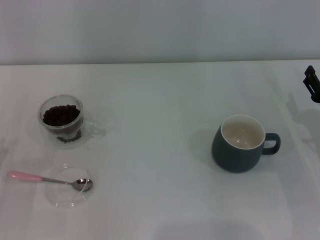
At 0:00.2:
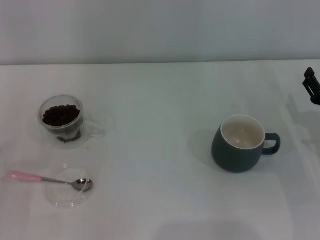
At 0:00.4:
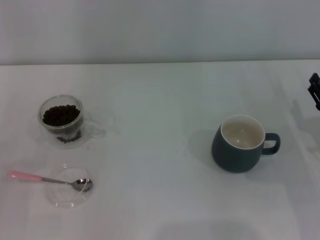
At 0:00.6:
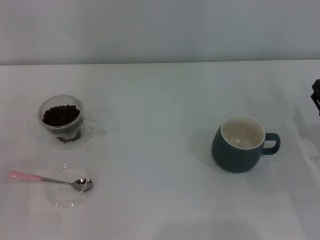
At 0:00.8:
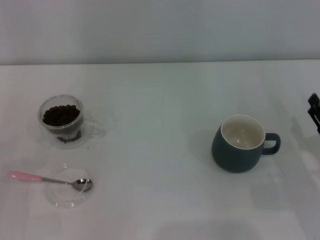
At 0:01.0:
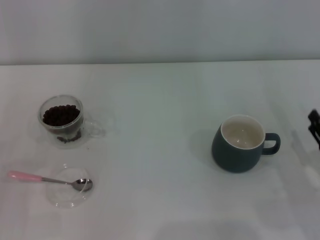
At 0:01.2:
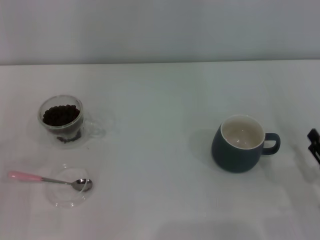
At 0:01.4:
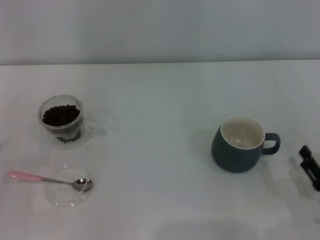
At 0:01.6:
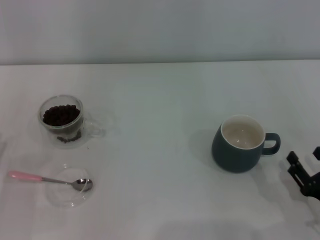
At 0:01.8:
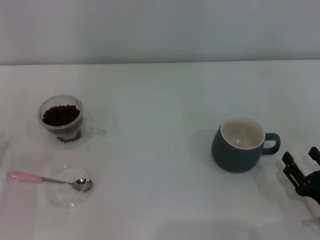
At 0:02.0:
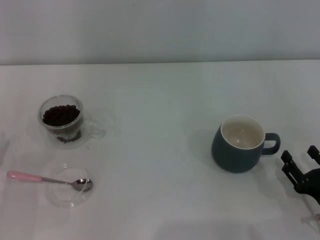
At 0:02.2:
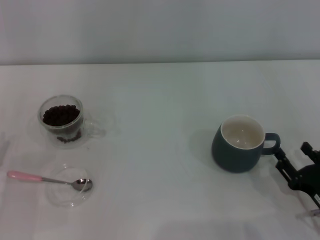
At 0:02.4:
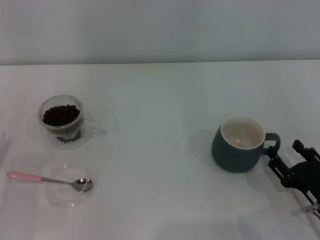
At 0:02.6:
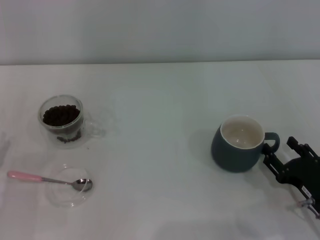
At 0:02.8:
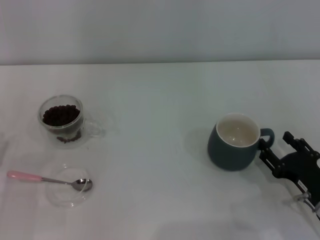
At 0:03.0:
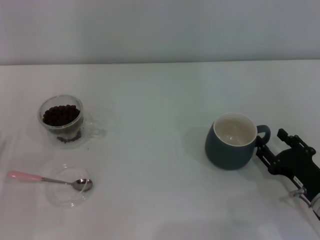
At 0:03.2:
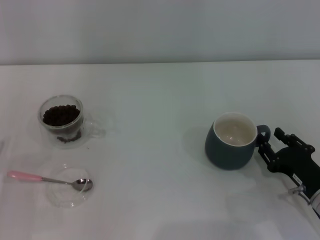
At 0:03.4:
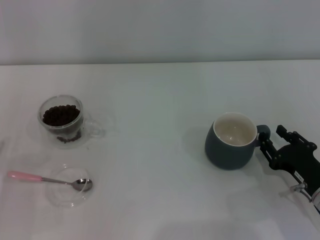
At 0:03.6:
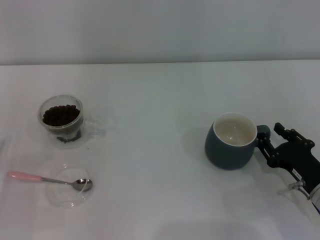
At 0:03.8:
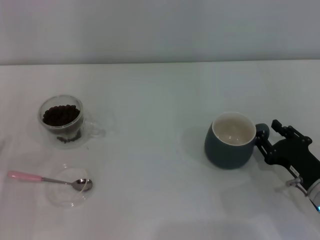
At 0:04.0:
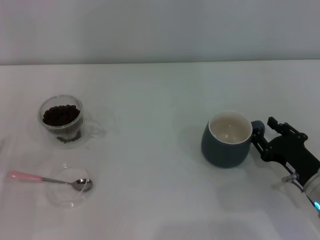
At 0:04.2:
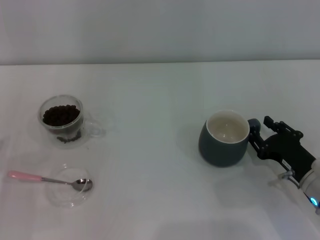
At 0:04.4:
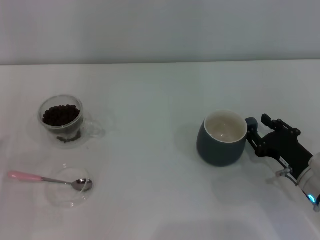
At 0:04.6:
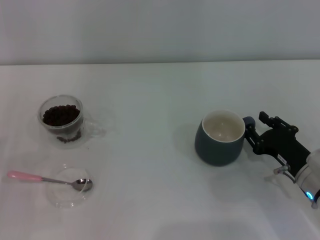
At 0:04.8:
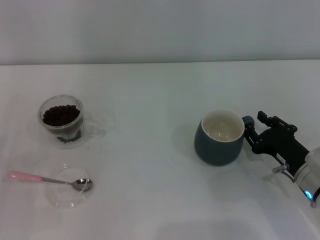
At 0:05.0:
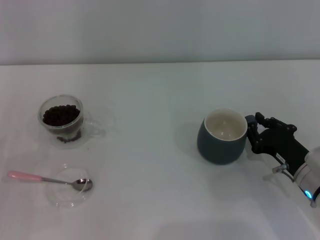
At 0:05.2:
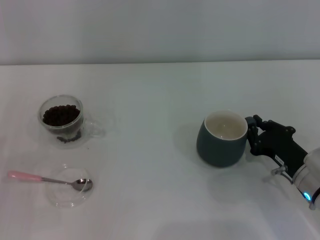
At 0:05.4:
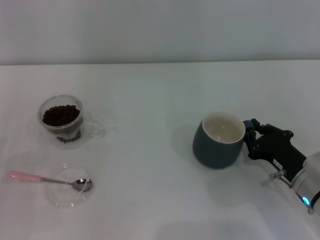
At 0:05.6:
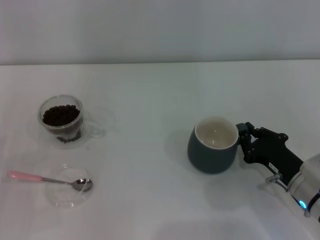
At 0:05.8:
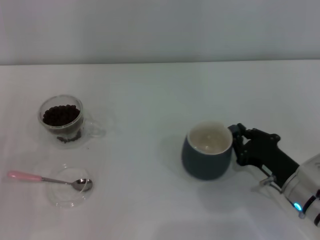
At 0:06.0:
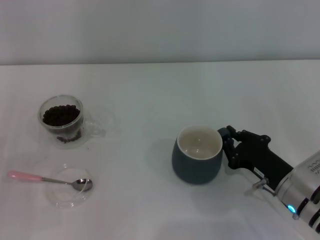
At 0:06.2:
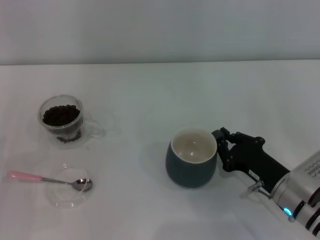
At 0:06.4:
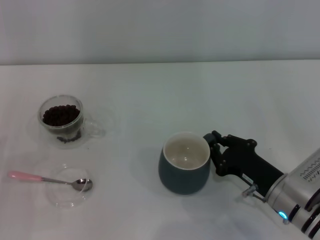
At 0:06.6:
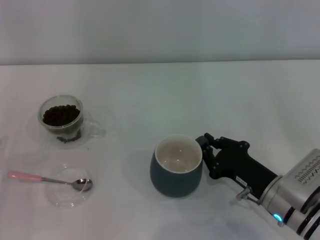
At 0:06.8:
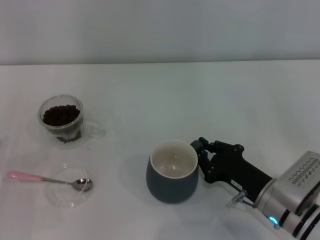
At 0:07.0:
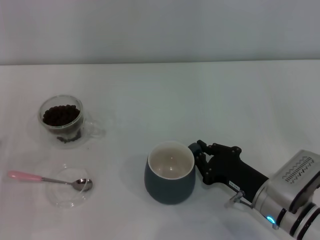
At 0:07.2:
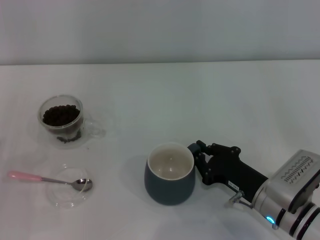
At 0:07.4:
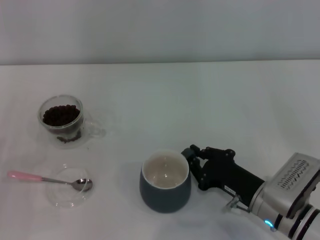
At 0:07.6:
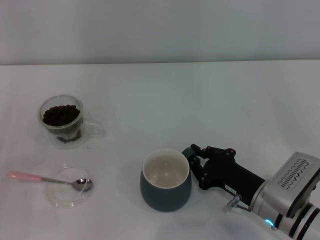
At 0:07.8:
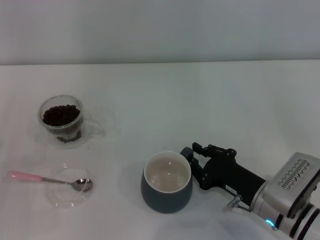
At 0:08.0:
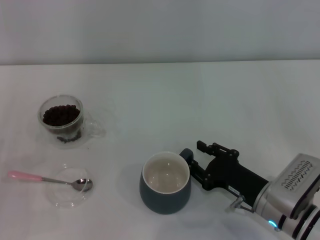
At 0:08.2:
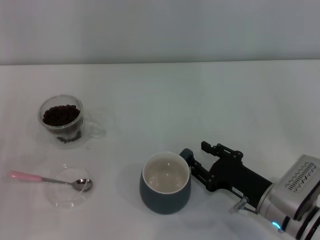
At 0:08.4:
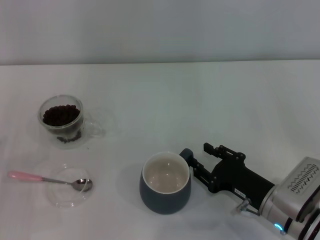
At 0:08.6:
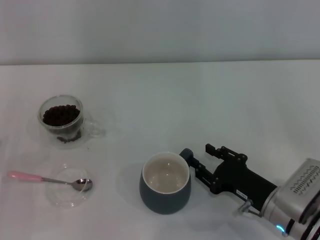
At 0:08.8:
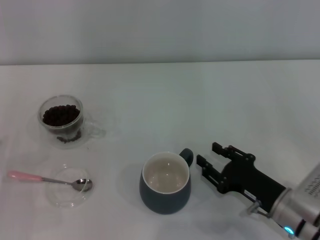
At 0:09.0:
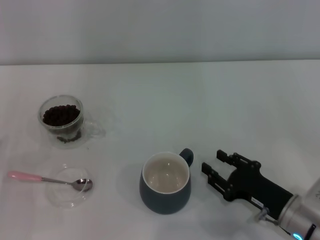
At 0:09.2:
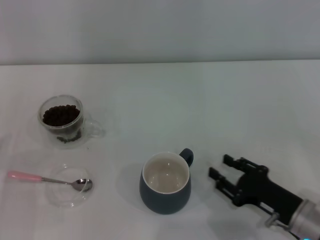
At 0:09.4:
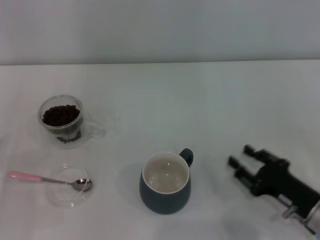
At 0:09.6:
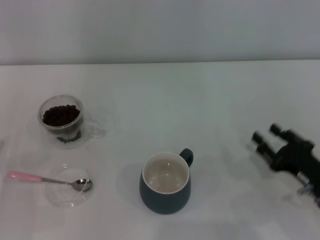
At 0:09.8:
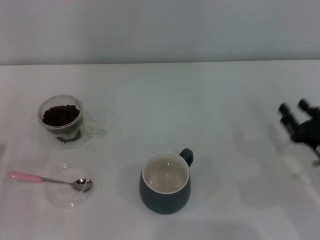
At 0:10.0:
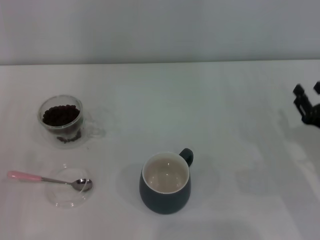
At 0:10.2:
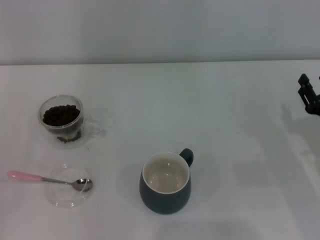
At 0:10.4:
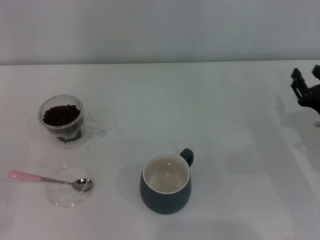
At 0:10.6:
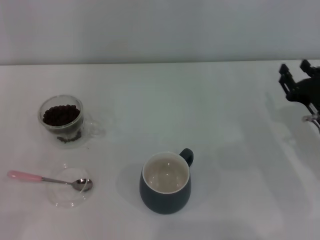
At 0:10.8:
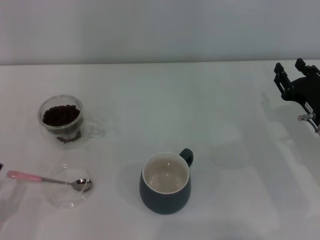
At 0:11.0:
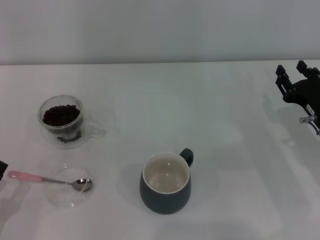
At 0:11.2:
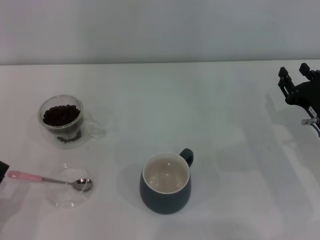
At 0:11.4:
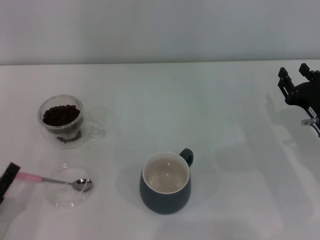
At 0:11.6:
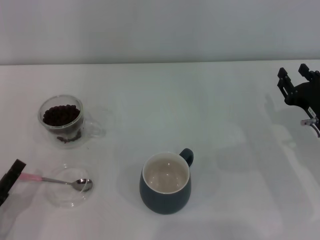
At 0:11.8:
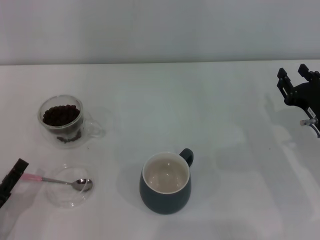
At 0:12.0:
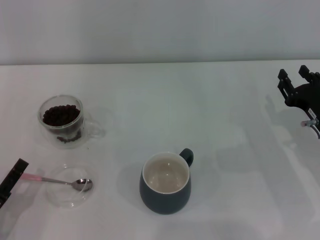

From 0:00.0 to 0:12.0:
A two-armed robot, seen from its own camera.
Task of the whole recording: Use a pink spoon to take out the coffee beans from the glass and pour them into the gray cup.
From 0:00.0 to 0:01.6: The right gripper travels backward by some 15 cm.
From 0:01.6 to 0:03.0: The right gripper shifts approximately 5 cm forward.
From 0:03.0 to 0:04.4: The grippers move only a little.
From 0:04.4 to 0:06.0: The right gripper closes its fingers.
From 0:06.0 to 0:07.6: The grippers move only a little.
From 0:07.6 to 0:09.0: The right gripper opens up.
From 0:09.0 to 0:10.4: The right gripper shifts approximately 10 cm to the right and forward.
From 0:10.4 to 0:12.0: The left gripper heads forward and to the right, covering approximately 10 cm.

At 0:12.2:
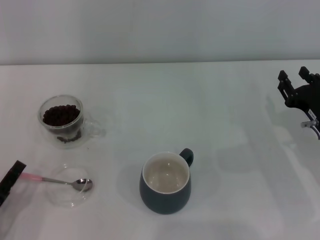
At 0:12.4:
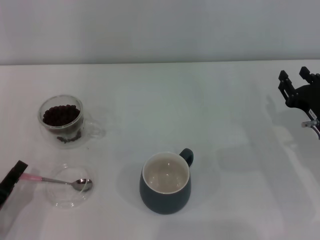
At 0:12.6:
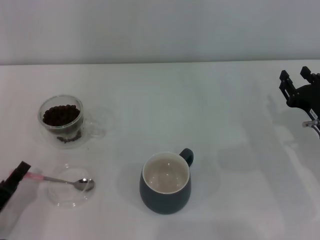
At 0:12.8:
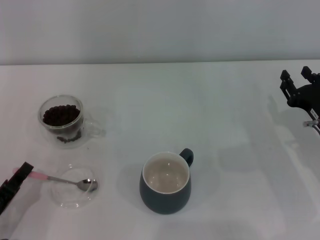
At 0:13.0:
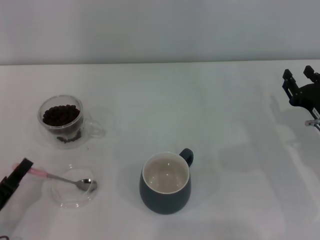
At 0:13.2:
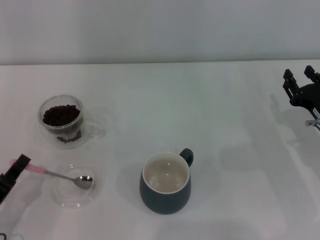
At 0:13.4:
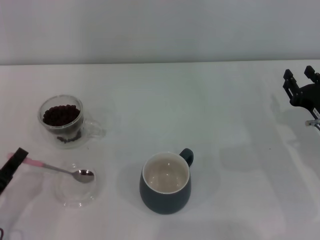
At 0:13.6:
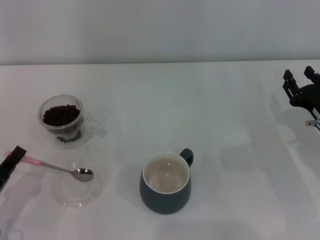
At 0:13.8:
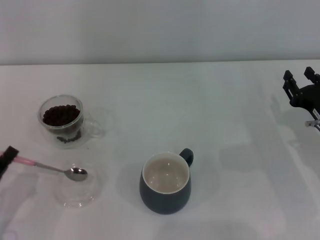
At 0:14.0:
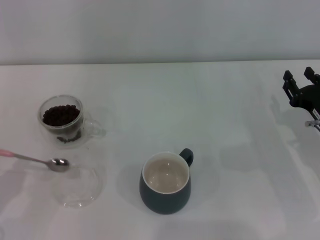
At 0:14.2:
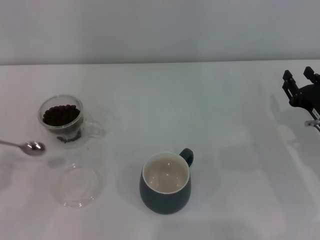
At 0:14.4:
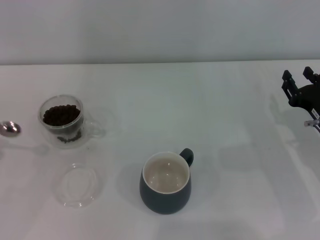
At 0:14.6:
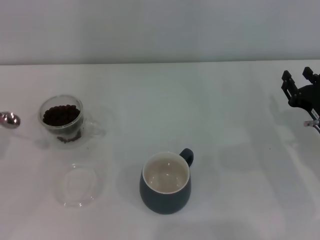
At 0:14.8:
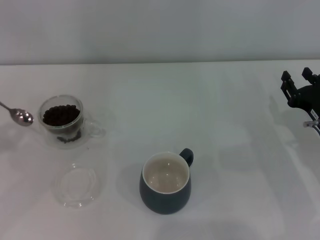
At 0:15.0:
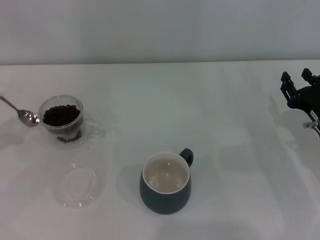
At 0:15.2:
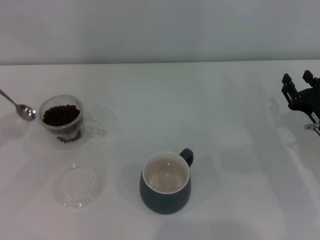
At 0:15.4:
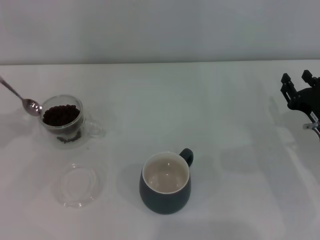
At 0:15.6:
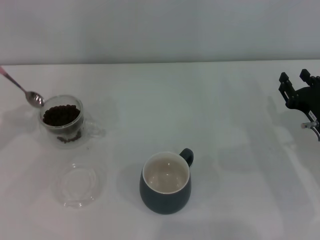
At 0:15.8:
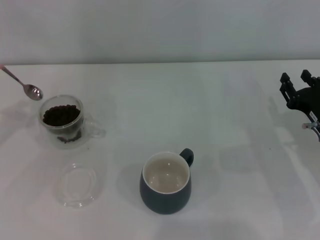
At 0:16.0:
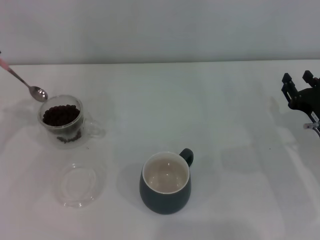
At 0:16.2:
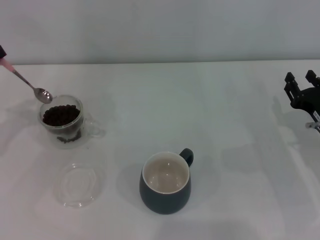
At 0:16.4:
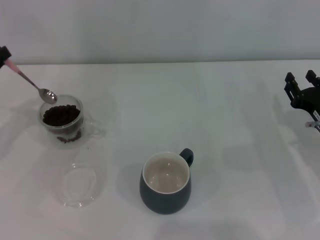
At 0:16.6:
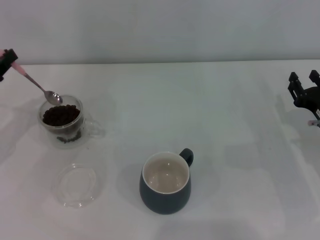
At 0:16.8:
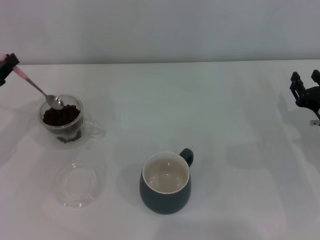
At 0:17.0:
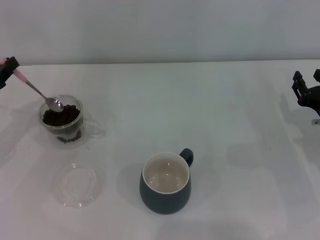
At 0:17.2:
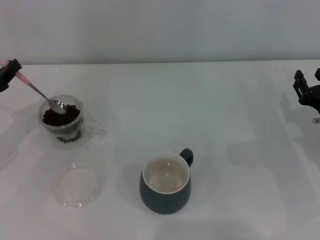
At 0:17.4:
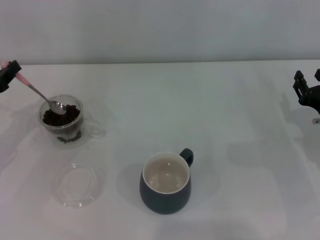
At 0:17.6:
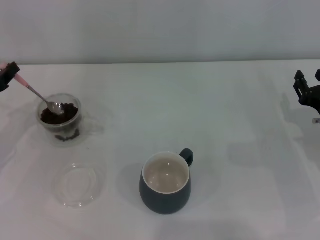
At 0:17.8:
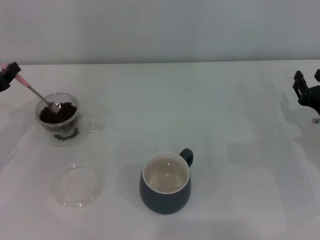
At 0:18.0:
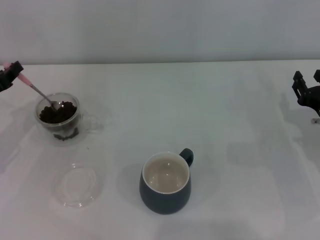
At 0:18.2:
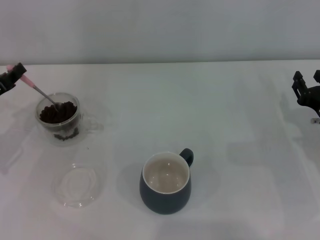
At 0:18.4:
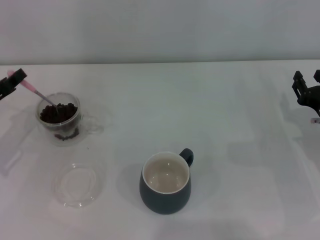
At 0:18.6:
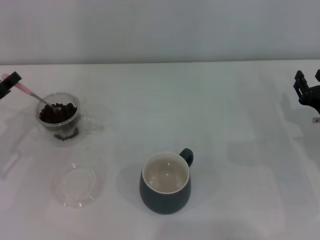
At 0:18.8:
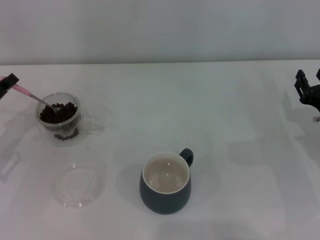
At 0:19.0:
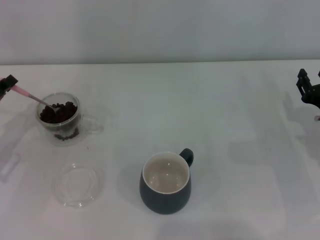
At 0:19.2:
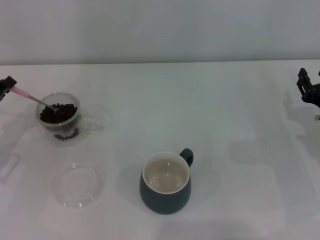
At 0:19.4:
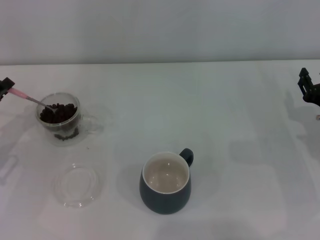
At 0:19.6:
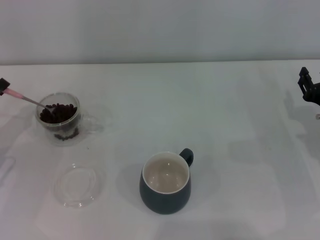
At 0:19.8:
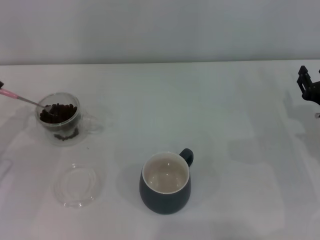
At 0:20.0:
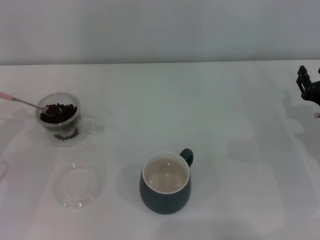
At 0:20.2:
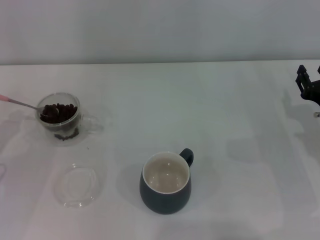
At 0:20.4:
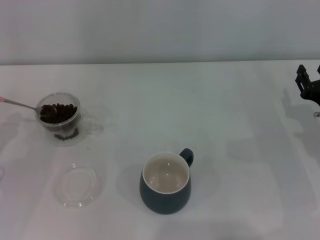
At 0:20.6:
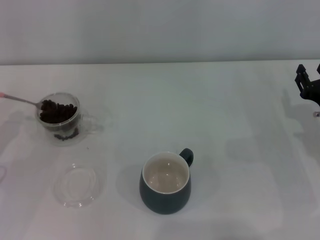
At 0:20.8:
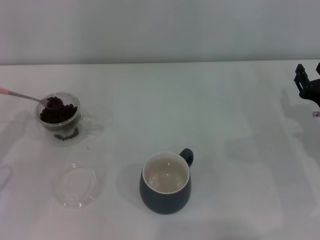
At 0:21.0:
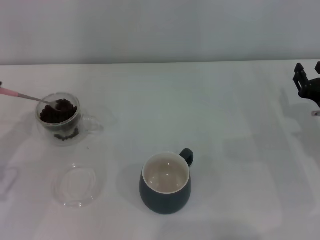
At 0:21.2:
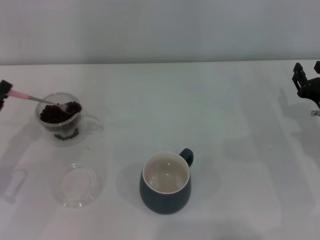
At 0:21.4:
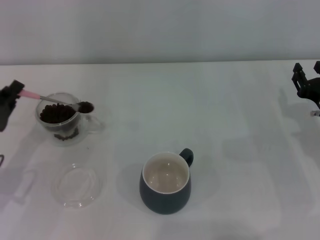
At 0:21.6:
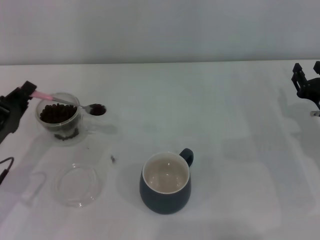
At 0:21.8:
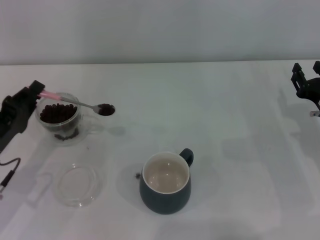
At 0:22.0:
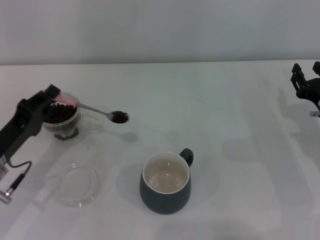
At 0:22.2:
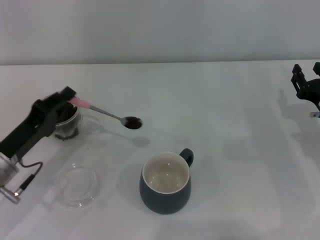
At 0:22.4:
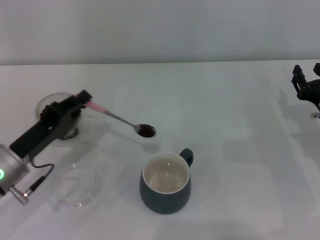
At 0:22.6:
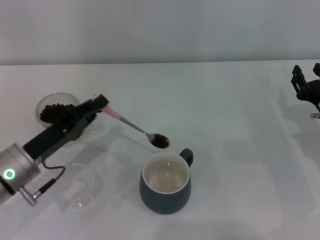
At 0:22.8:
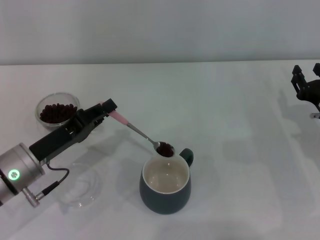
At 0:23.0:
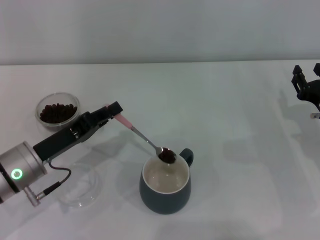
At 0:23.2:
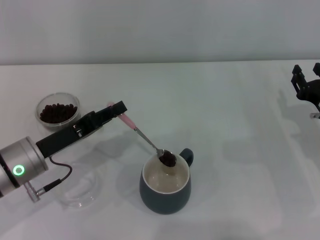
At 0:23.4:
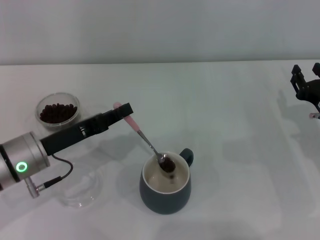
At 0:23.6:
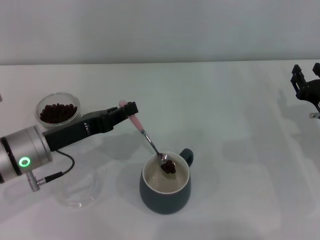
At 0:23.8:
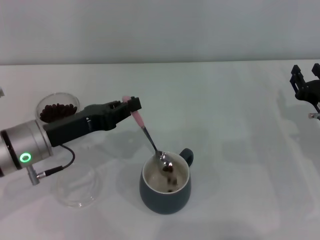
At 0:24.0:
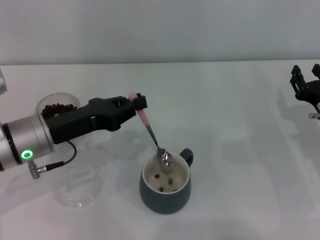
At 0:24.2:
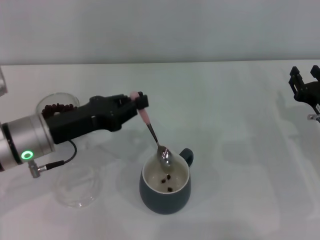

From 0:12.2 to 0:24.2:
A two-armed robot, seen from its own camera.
Task of the whole recording: Use a pink spoon to take out the coffee beans from the glass and pour them into the gray cup.
From 0:12.2 to 0:13.8: The left gripper closes its fingers.
From 0:13.8 to 0:15.2: The left gripper moves forward, upward and to the left, approximately 20 cm.
From 0:15.2 to 0:16.6: The left gripper is displaced to the right by about 5 cm.
From 0:16.6 to 0:18.2: The grippers move only a little.
From 0:19.8 to 0:21.2: The grippers stay close to where they were, moving slightly.
From 0:21.2 to 0:22.6: The left gripper travels to the right by some 10 cm.
From 0:22.6 to 0:24.2: The left gripper is displaced upward by roughly 5 cm.
